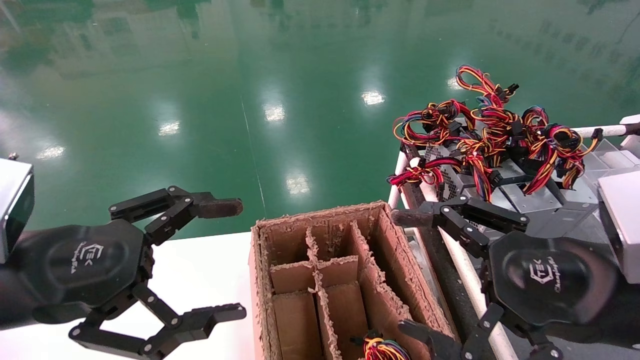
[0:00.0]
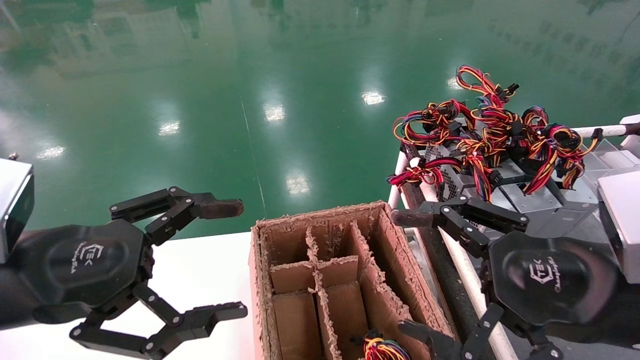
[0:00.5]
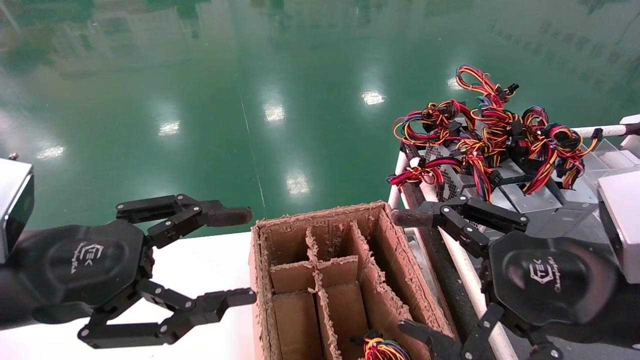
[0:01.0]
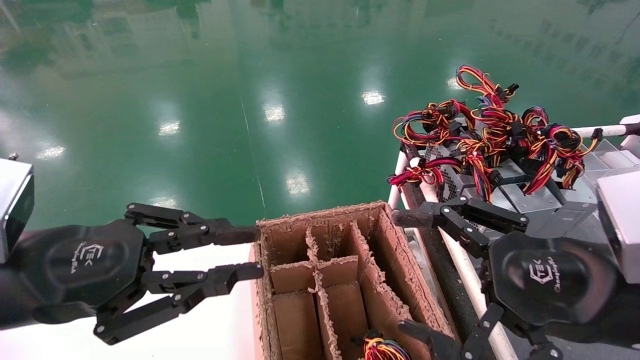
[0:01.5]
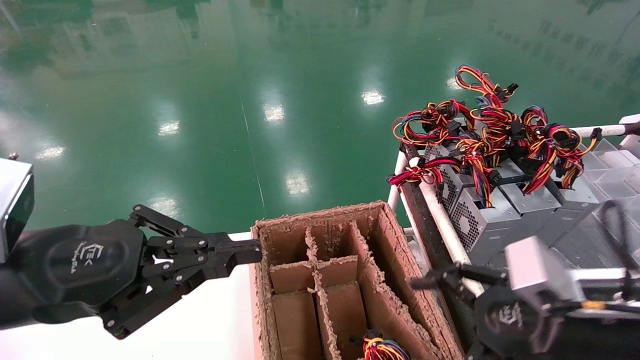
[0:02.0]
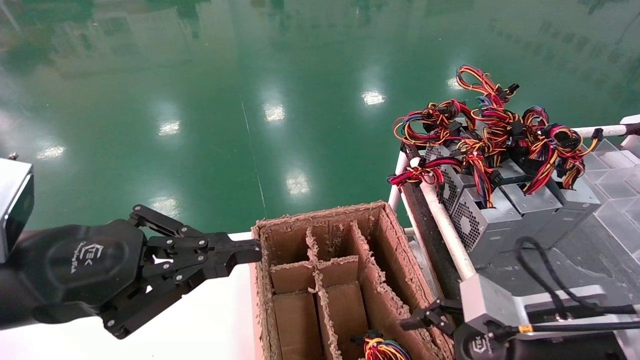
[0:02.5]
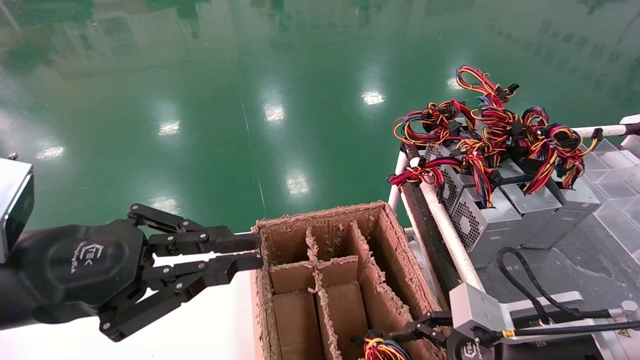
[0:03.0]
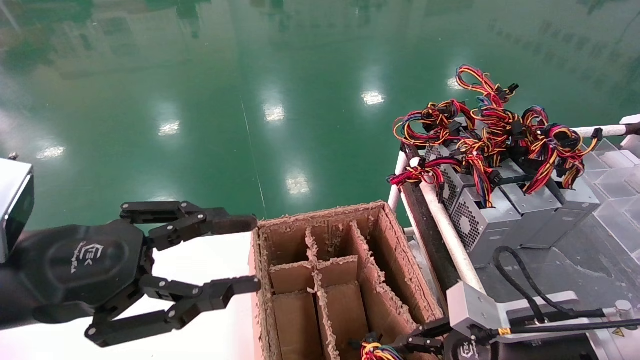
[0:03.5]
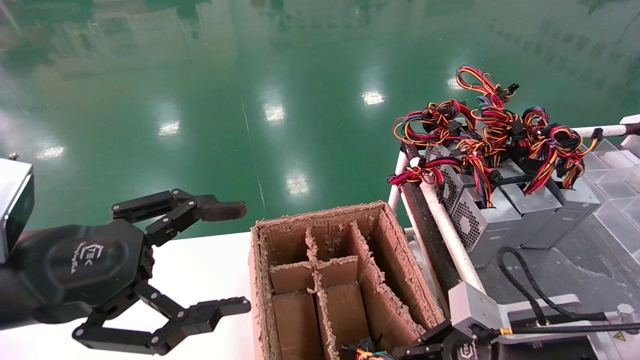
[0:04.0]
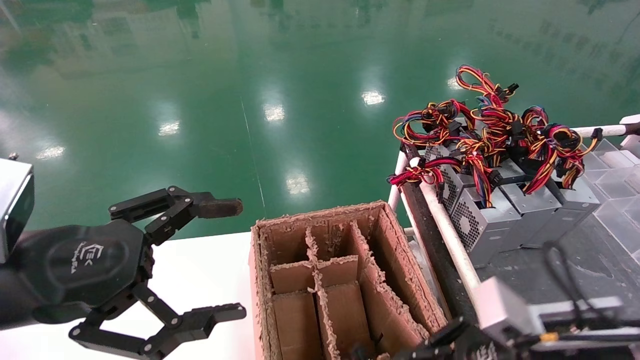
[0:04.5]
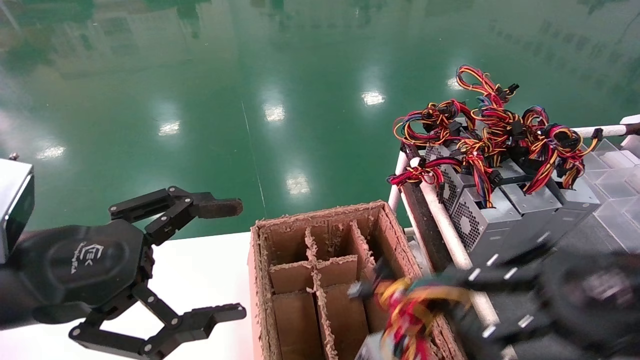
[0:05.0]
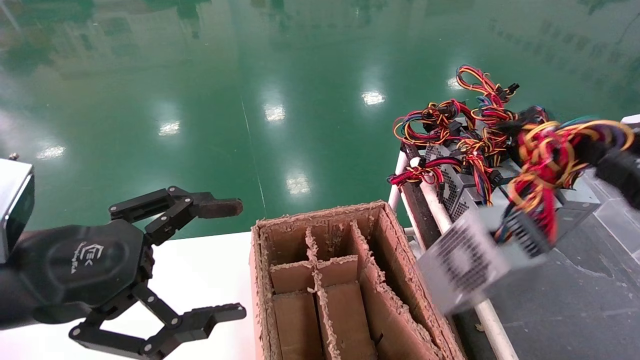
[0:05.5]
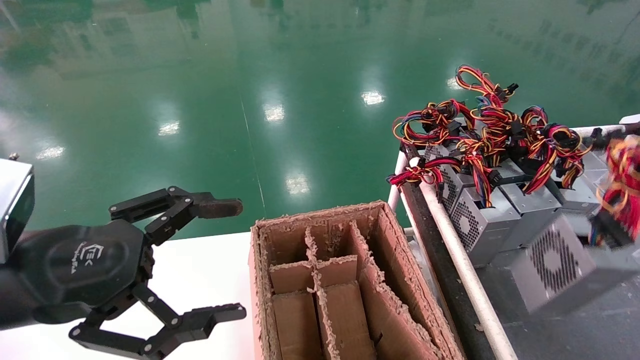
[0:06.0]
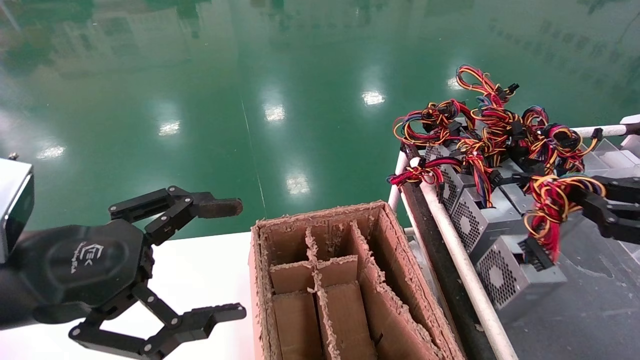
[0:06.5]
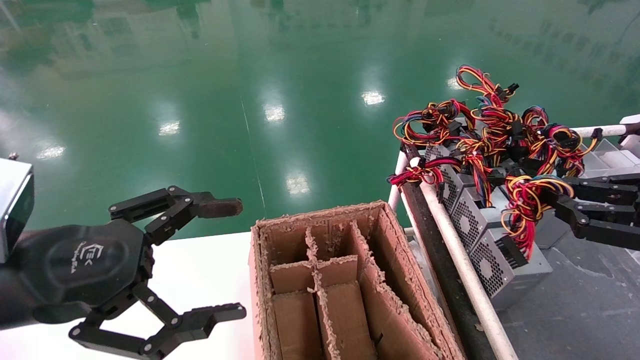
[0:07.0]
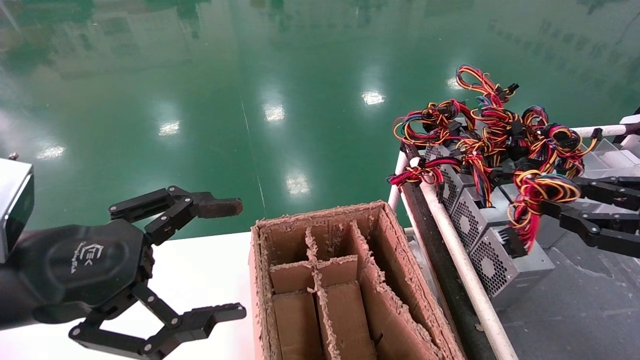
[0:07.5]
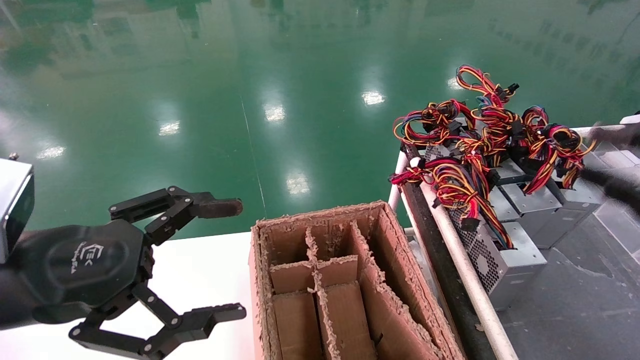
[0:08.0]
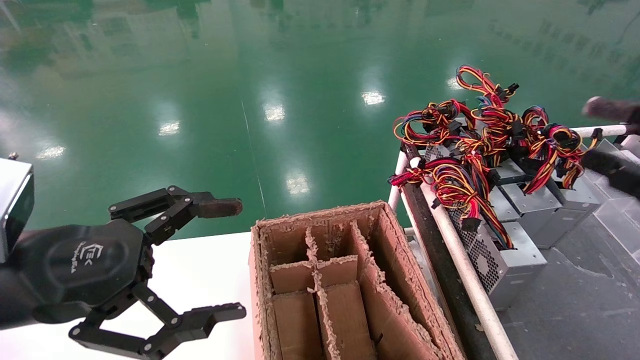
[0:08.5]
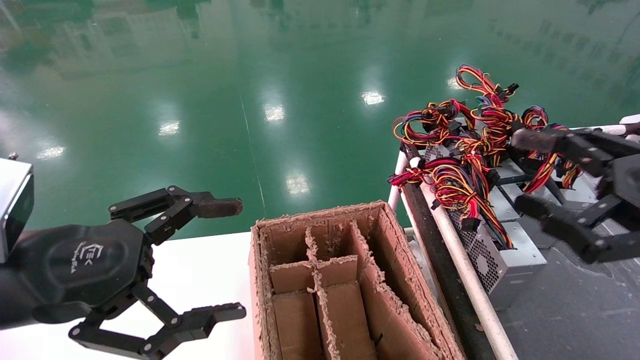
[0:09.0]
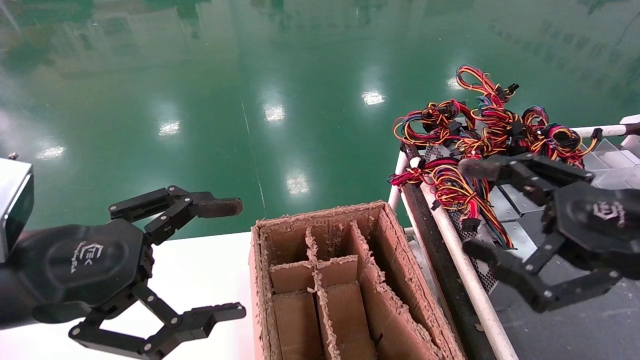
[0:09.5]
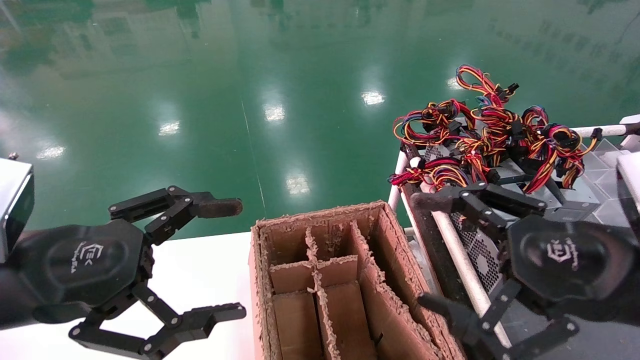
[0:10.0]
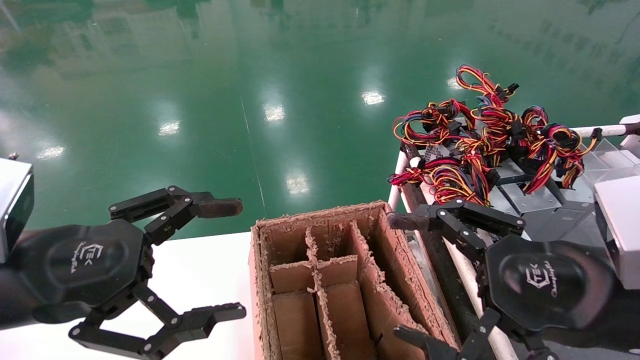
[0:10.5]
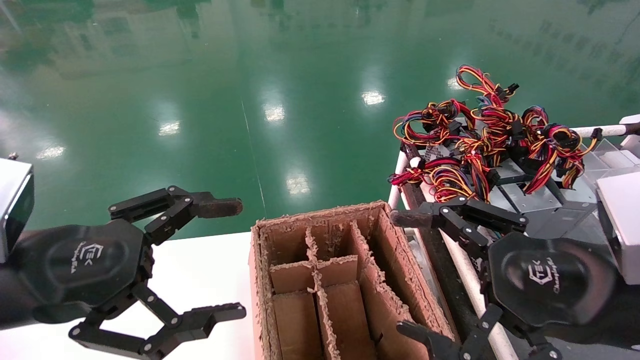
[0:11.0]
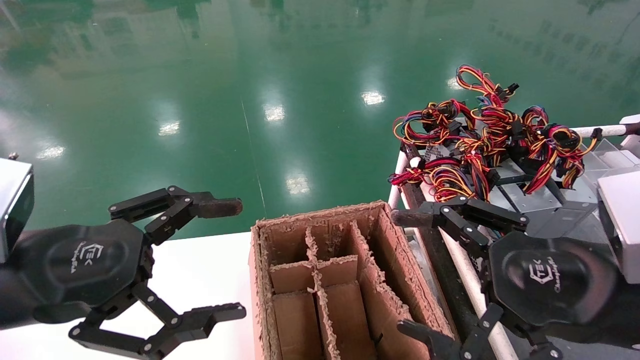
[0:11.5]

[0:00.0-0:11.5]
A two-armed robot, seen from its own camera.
Step, 0:02.5 to 0:04.0: Grab and lift the power supply from the large box.
Step, 0:04.5 to 0:07.5: Place the power supply on the operating table.
0:00.0 to 0:02.0: The right gripper shifts some 5 cm downward. The left gripper closes its fingers.
0:02.0 to 0:04.0: The right gripper travels downward by some 5 cm, and closes its fingers. Meanwhile the left gripper opens its fingers.
0:04.0 to 0:06.0: The right gripper moves to the right and upward, about 25 cm.
0:06.0 to 0:07.5: The right gripper travels forward by some 5 cm.
0:07.5 to 0:09.5: The right gripper heads to the left, covering roughly 10 cm, and opens its fingers.
0:09.5 to 0:11.5: The right gripper travels to the left by some 5 cm.

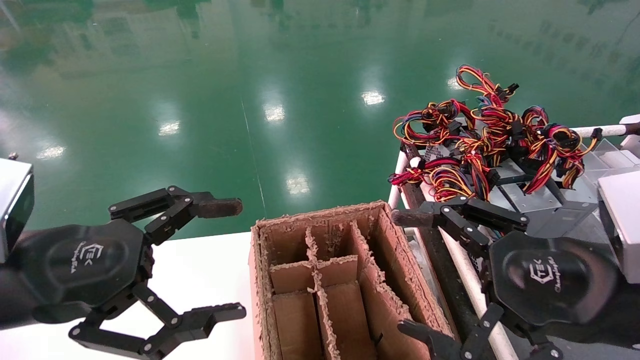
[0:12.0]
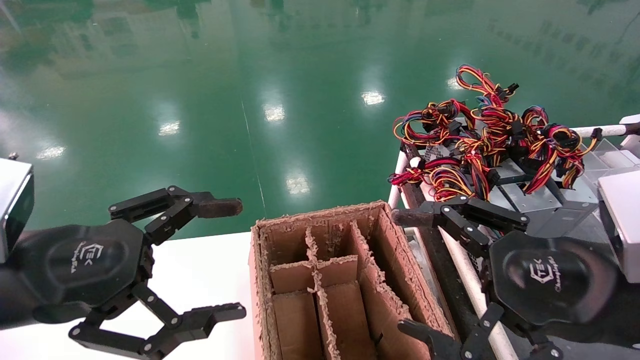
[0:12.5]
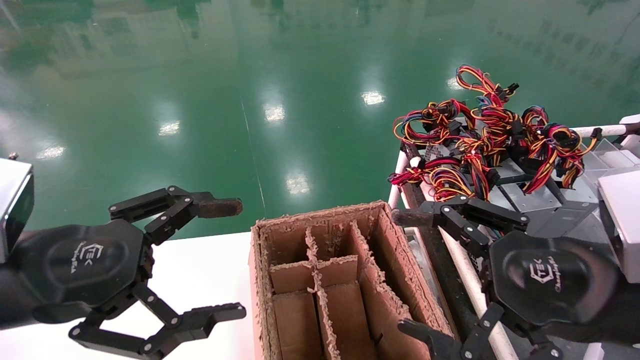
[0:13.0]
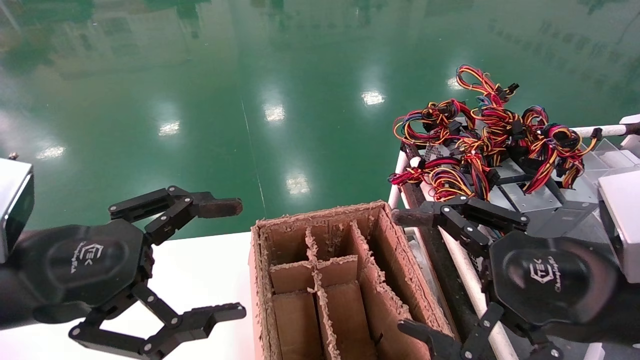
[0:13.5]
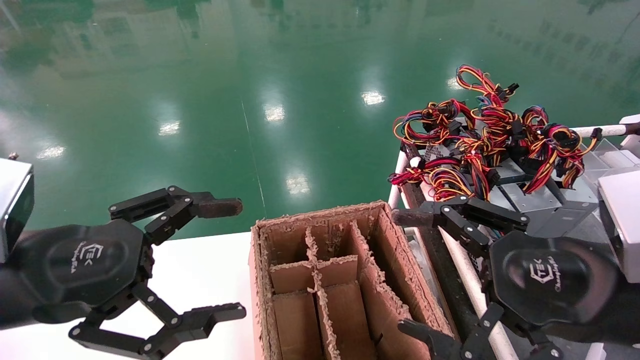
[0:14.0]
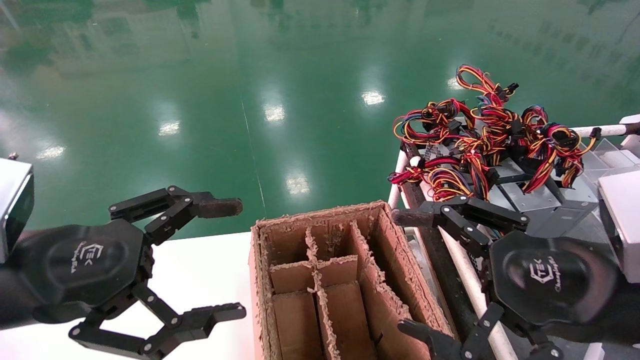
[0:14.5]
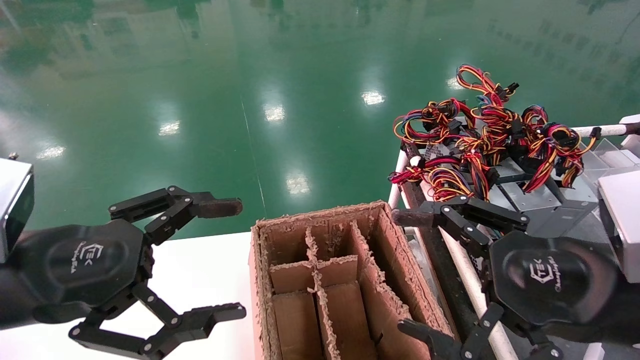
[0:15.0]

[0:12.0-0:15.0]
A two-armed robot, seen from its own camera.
0:12.0 to 0:15.0: Both grippers stay put.
